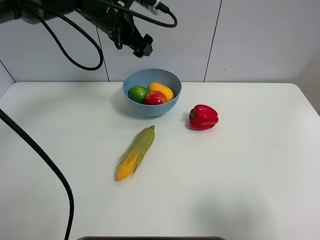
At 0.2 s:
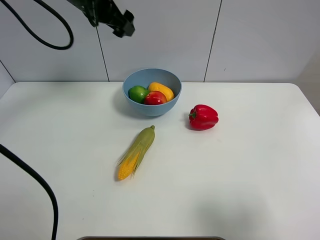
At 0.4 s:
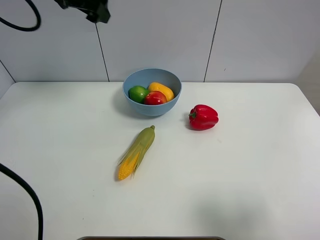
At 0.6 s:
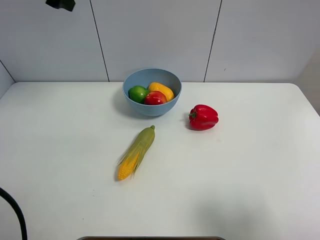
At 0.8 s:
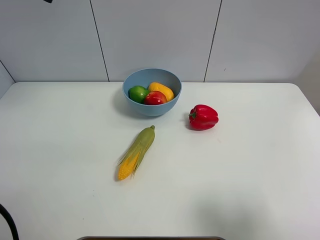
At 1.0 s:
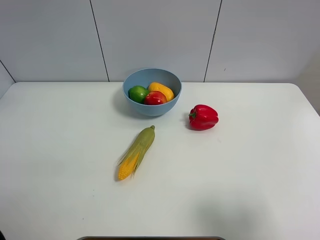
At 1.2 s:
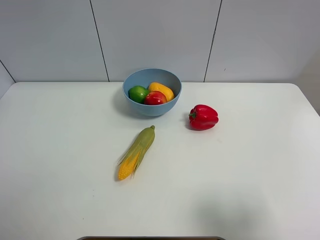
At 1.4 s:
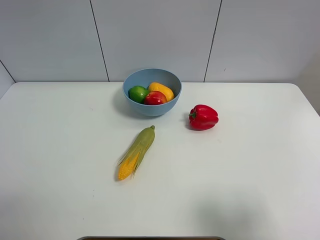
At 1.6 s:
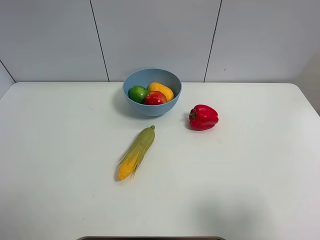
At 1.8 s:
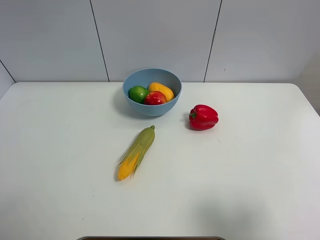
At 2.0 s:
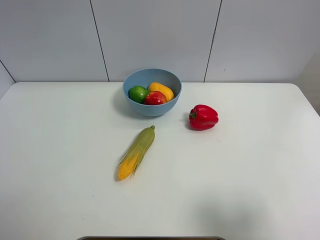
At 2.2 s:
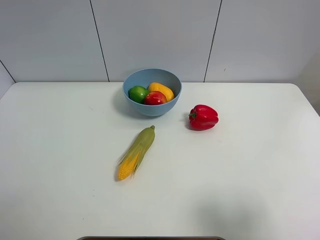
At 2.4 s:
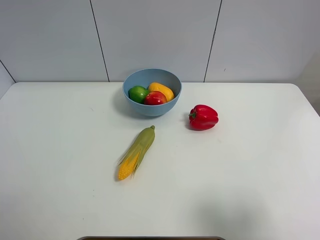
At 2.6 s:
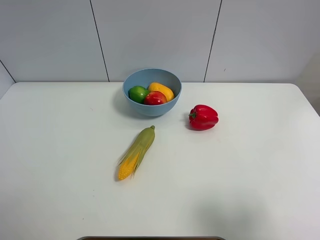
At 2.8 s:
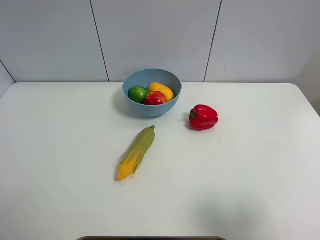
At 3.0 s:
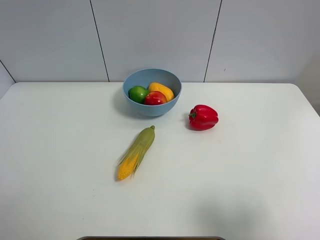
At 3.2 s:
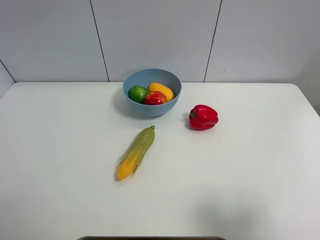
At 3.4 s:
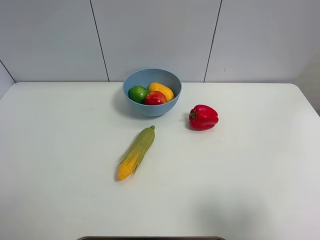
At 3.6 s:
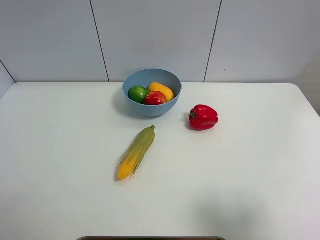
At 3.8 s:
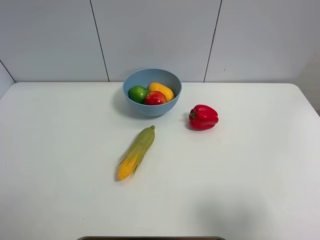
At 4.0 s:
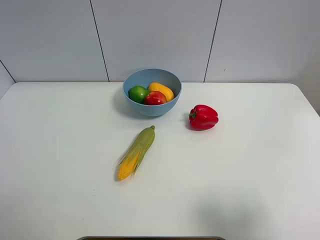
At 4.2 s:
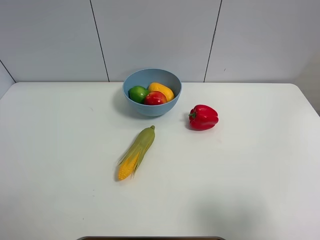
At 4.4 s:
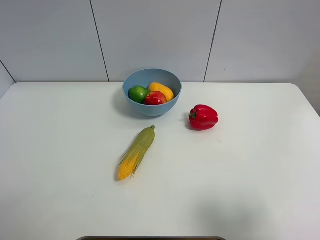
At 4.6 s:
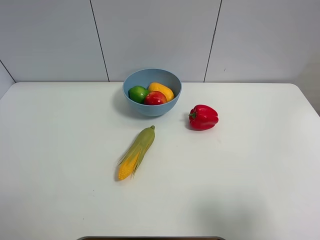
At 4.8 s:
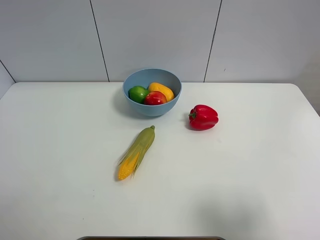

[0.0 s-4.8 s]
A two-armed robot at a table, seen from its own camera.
Task of the whole recording: Put the three fruits on the table into a bowl.
0.0 to 1.6 s: The left gripper goes roughly 40 cm to the left, upward and backward.
